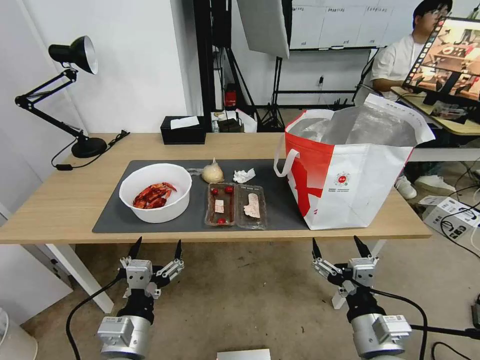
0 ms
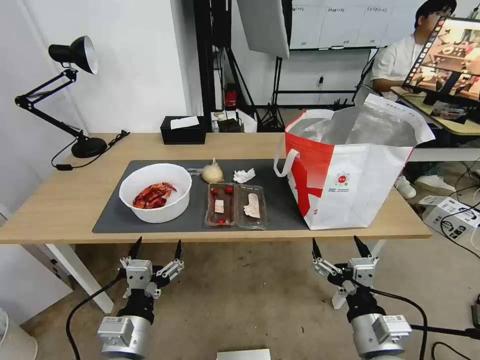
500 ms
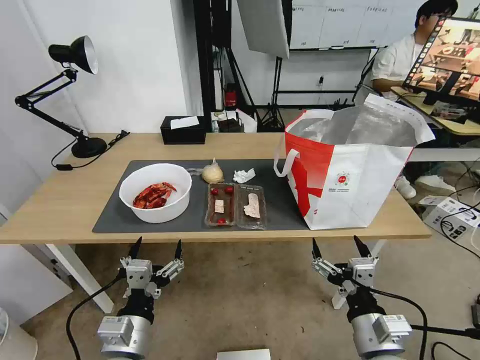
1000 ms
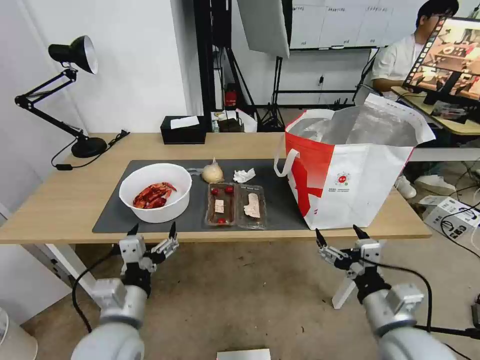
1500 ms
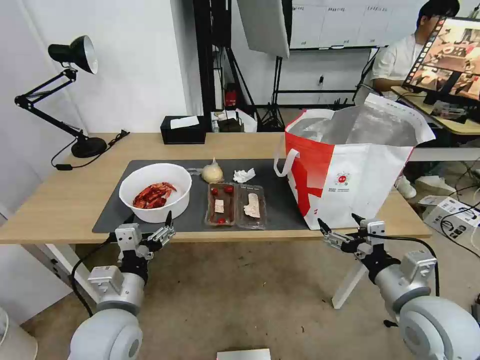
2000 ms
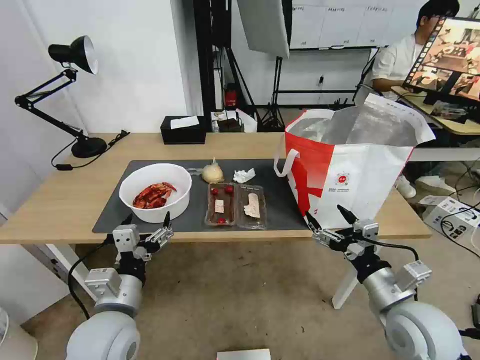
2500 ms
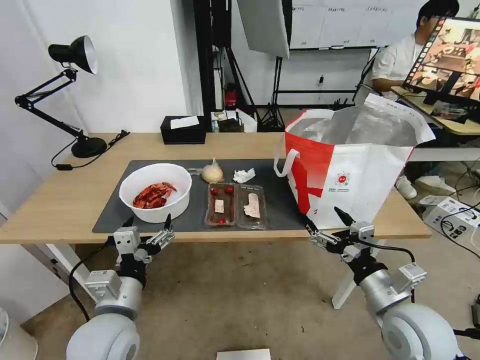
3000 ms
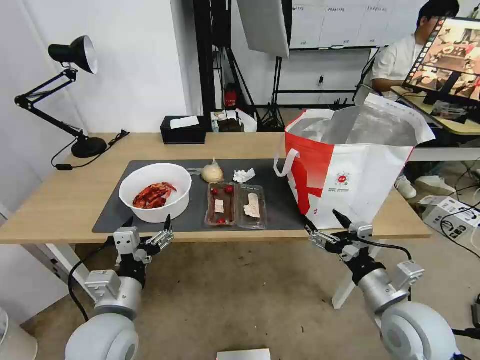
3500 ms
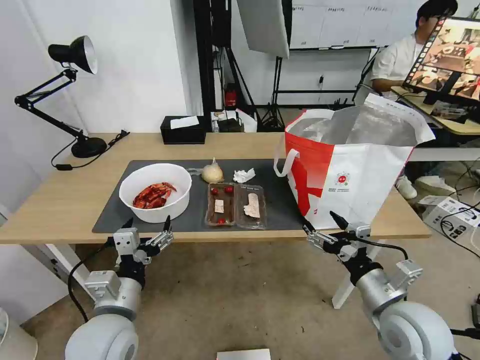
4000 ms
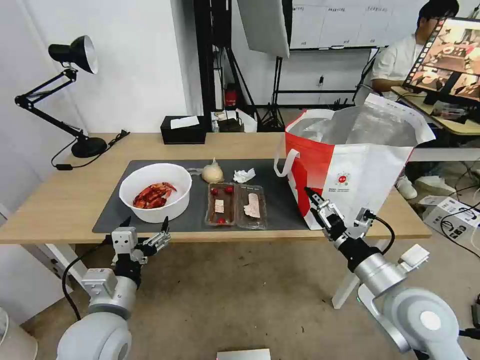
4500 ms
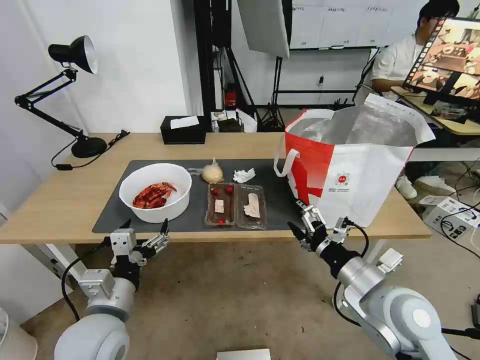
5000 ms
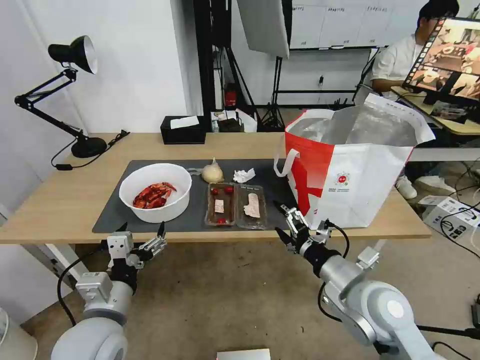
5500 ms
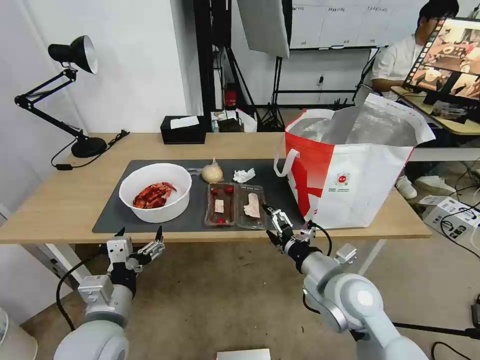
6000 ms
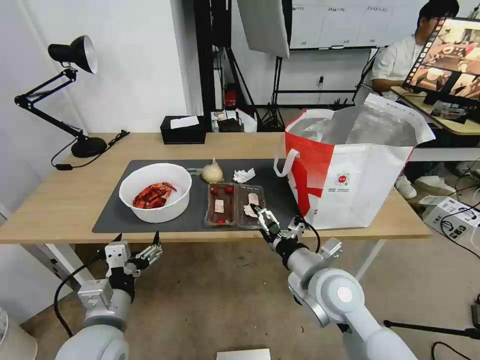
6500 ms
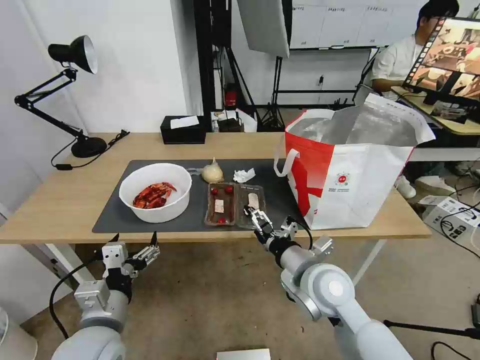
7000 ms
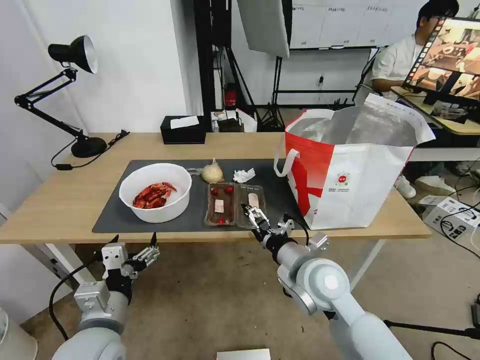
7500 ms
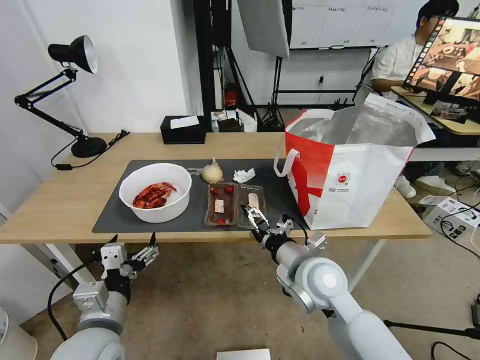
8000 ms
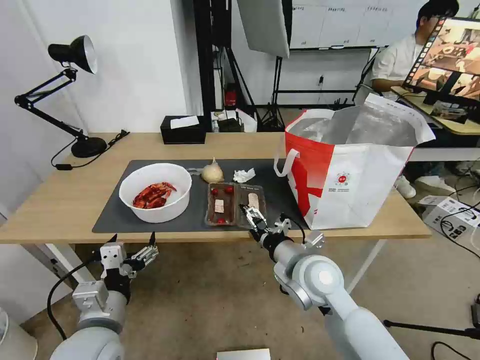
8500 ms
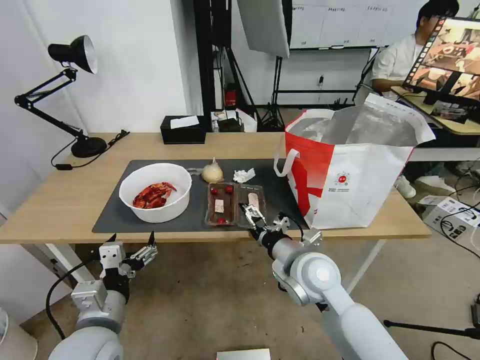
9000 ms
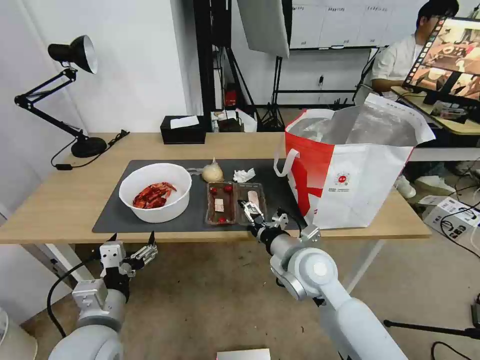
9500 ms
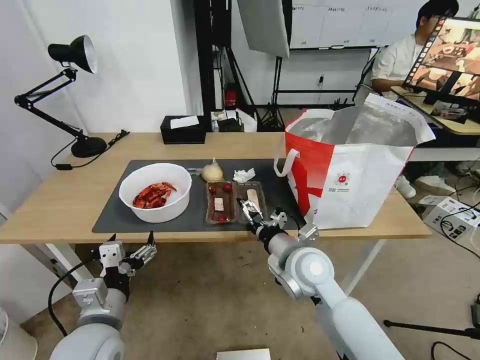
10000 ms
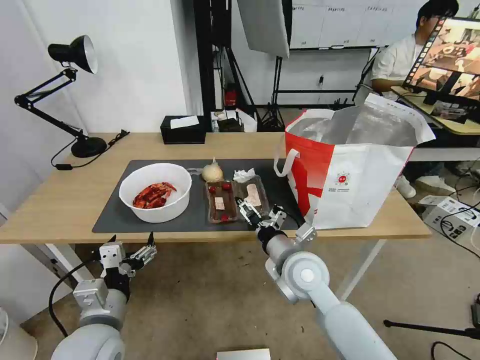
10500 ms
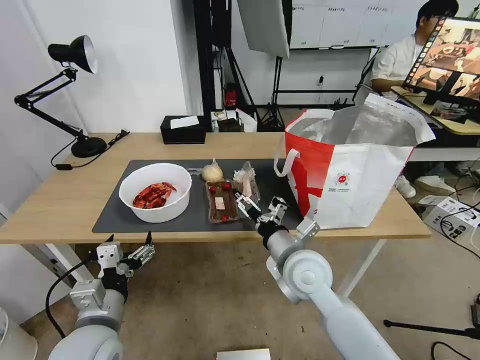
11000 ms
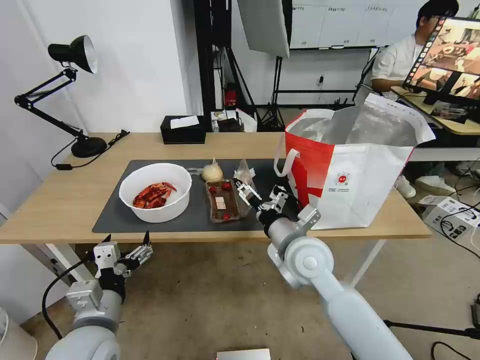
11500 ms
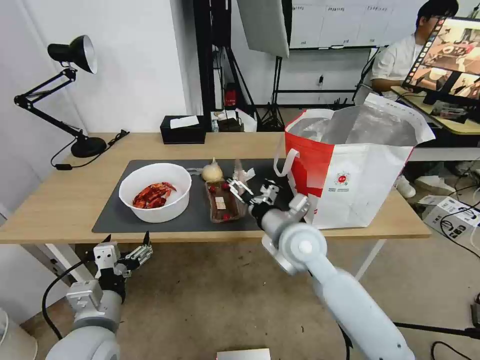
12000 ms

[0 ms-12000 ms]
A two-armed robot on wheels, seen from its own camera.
Task of the whole recording: Pick up the trash from the table and place it into the takeout bag.
2000 ms to 4000 ms: The grippers move only a little.
4000 ms to 6000 ms: The right gripper goes roughly 10 cm to the left and forward.
6000 ms to 8000 ms: The right gripper ends up about 5 cm from where it was.
8000 ms to 10000 ms: The grippers make only small movements.
10000 ms to 12000 ms: The right gripper shifts by roughly 5 cm.

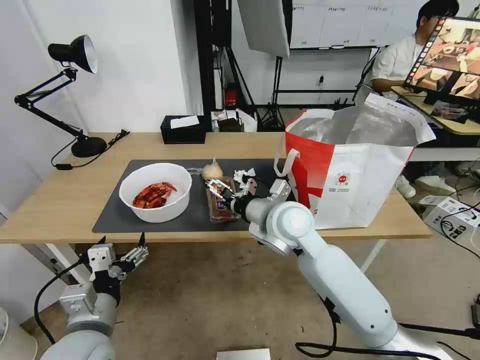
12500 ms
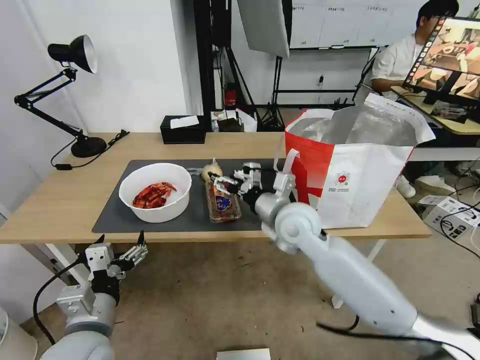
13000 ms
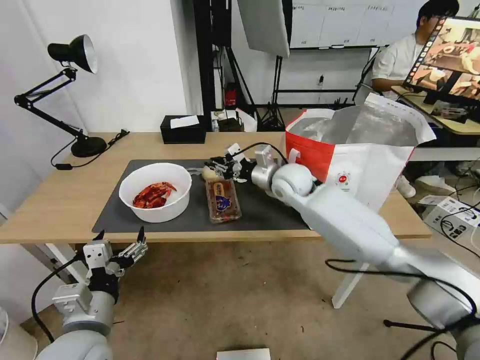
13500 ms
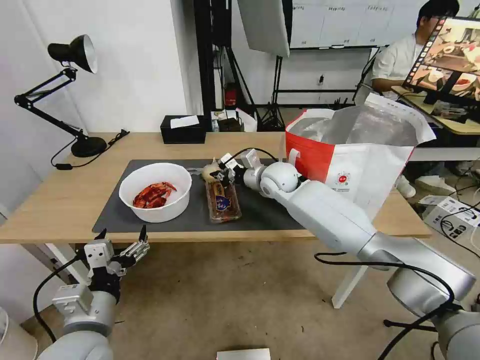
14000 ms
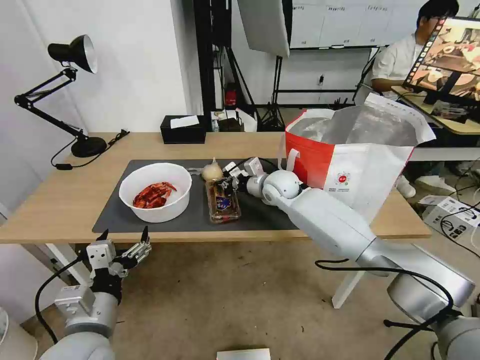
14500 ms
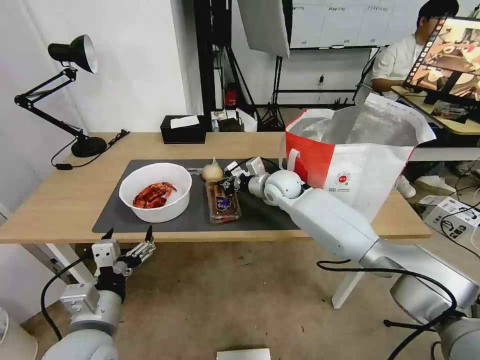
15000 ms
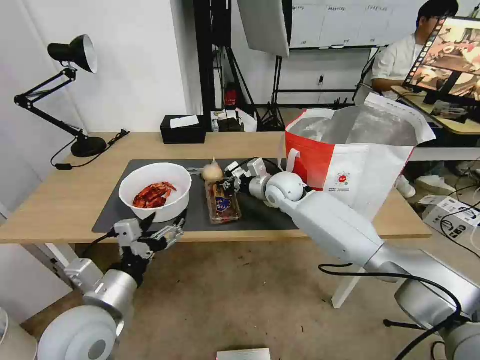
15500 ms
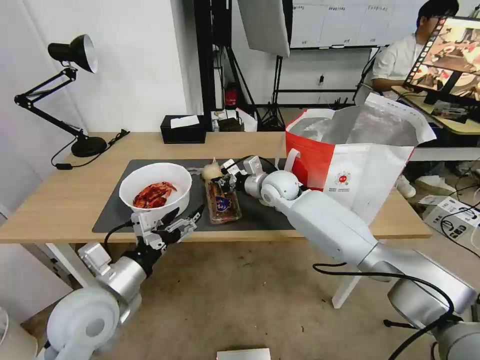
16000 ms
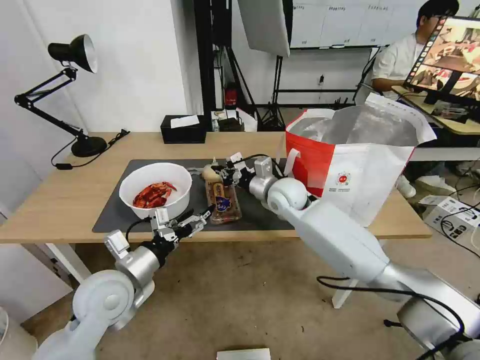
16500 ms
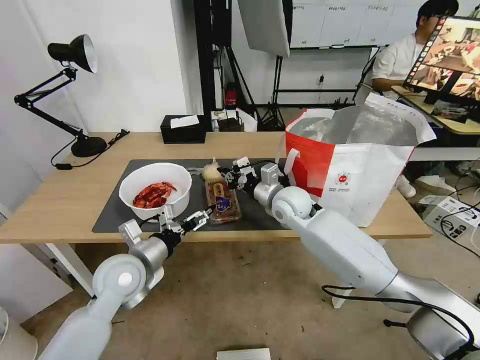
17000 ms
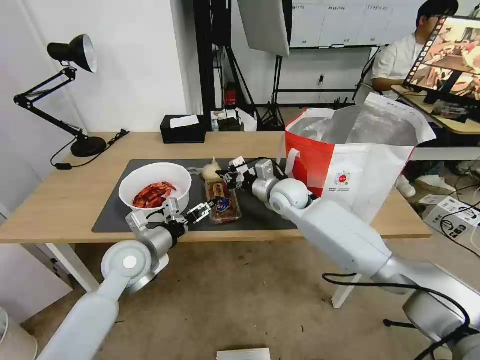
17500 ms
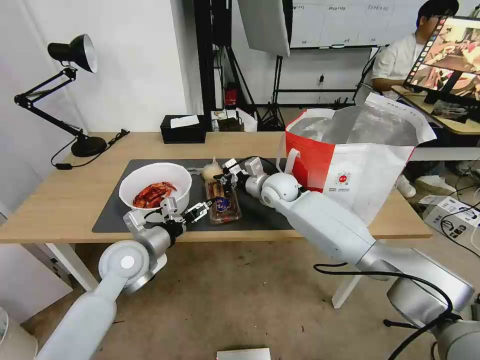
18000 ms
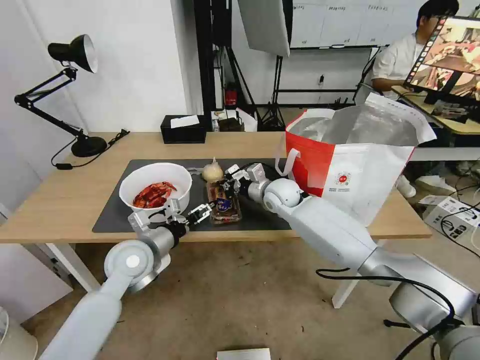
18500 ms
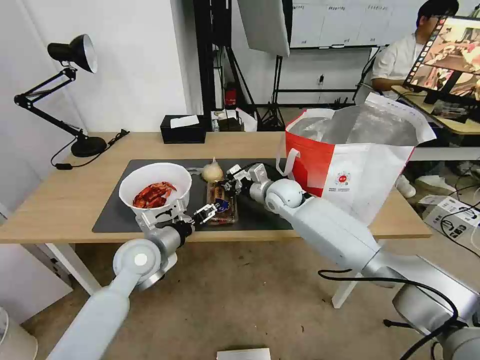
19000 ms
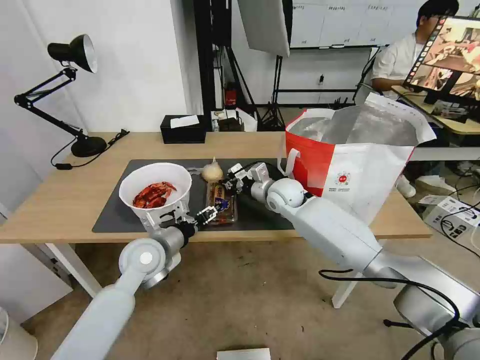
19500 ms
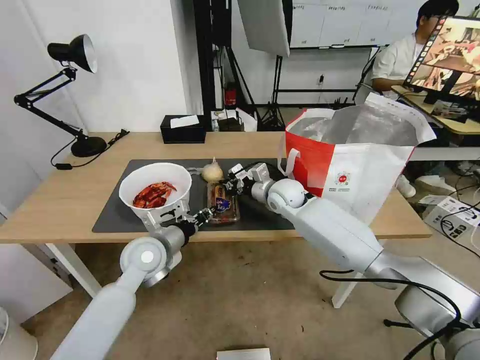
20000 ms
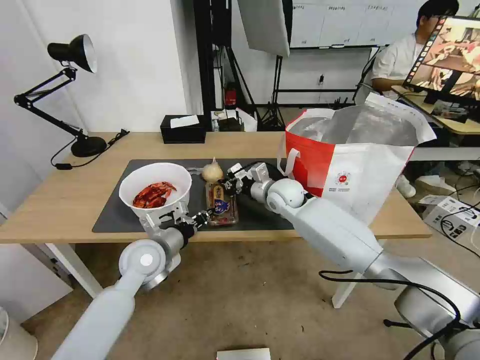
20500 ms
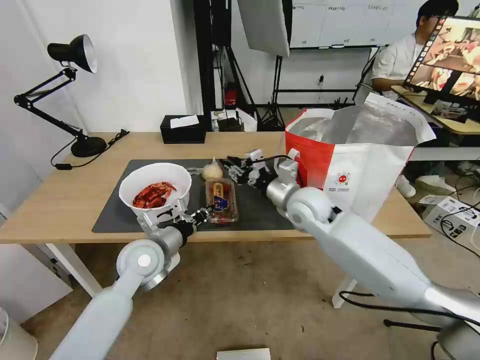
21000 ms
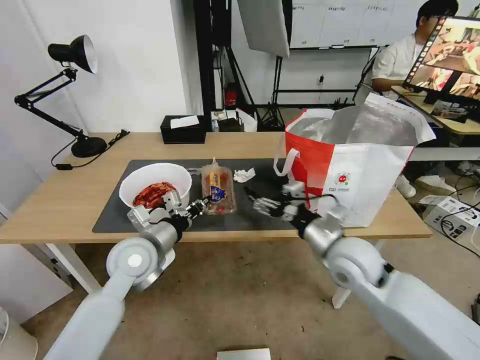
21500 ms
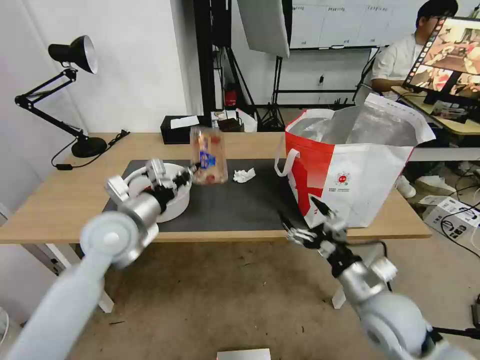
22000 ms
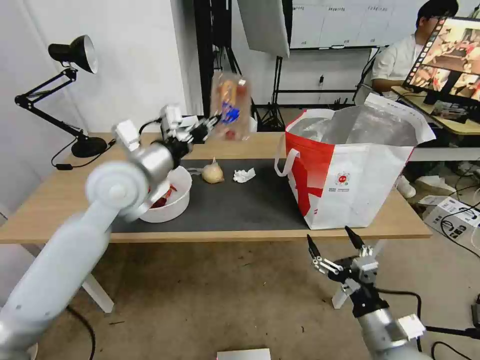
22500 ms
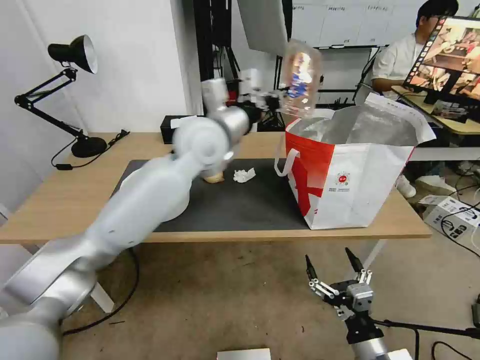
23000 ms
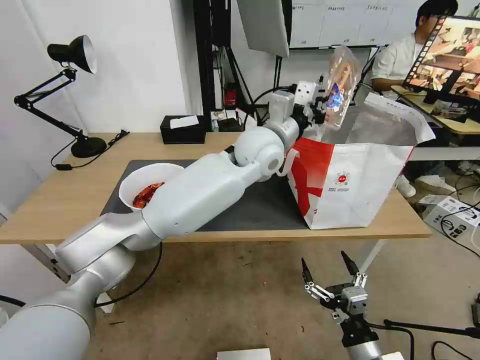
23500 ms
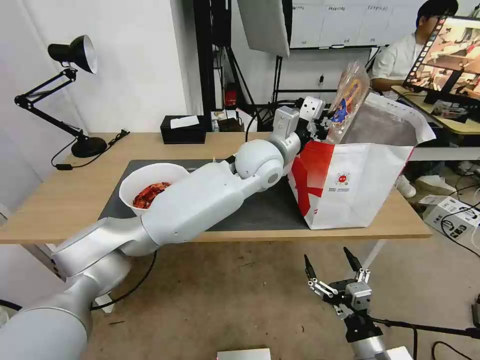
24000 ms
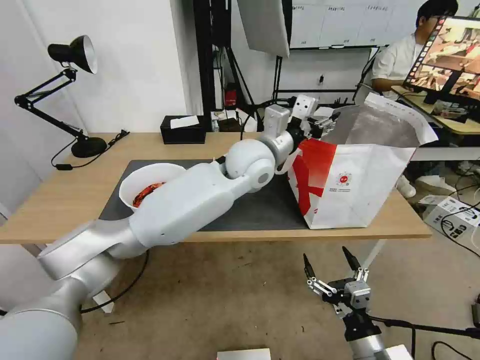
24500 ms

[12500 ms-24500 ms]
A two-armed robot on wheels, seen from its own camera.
Task of the whole recording: Pick up the trash from the table and place it into the takeout bag.
12500 ms to 14500 ms: The right gripper is displaced forward by roughly 15 cm, and closes its fingers.
14500 ms to 16500 ms: The left gripper goes roughly 10 cm forward.
16500 ms to 18500 ms: The left gripper is displaced forward by approximately 10 cm.
18500 ms to 20500 ms: The left gripper closes up.
20500 ms to 22500 ms: The left gripper moves upward, about 20 cm. Meanwhile the right gripper is displaced backward and to the right by about 40 cm, and opens up.
22500 ms to 24500 ms: The left gripper moves to the right, roughly 20 cm, and opens its fingers.

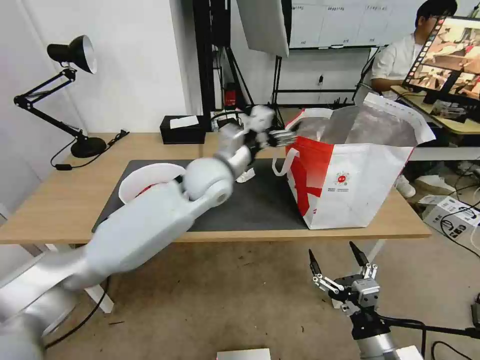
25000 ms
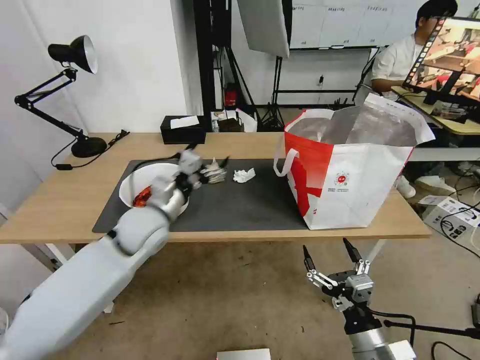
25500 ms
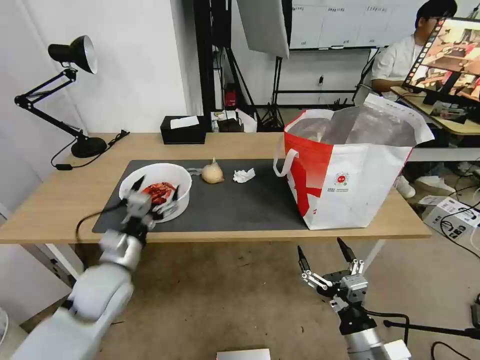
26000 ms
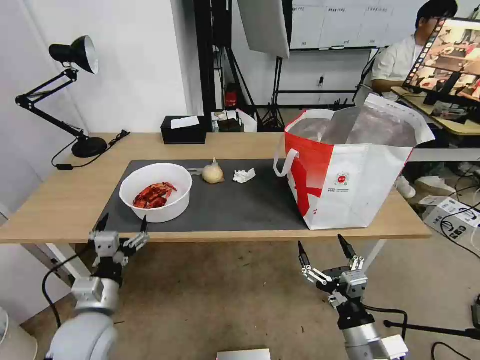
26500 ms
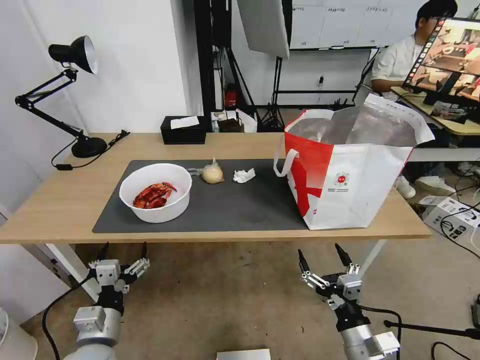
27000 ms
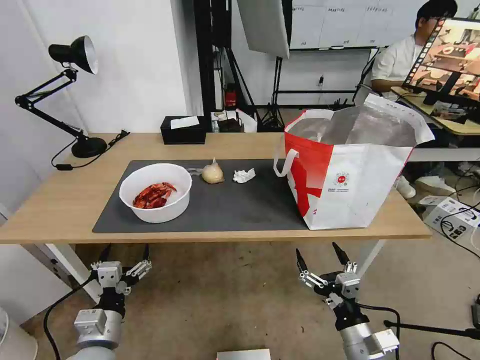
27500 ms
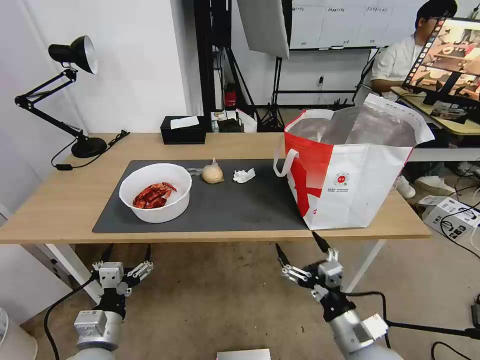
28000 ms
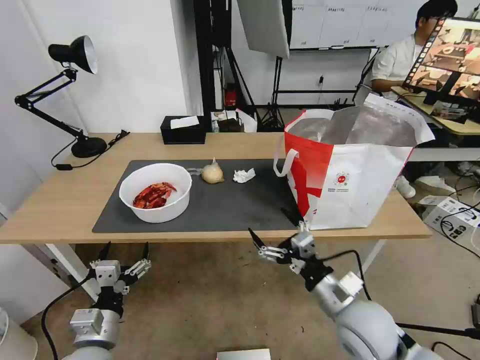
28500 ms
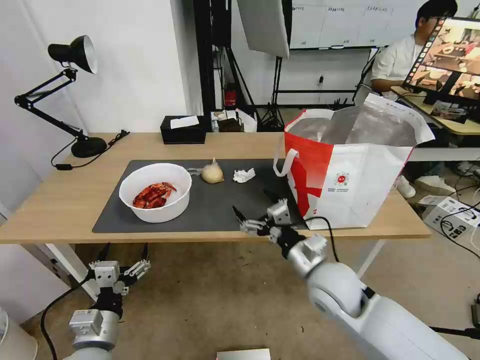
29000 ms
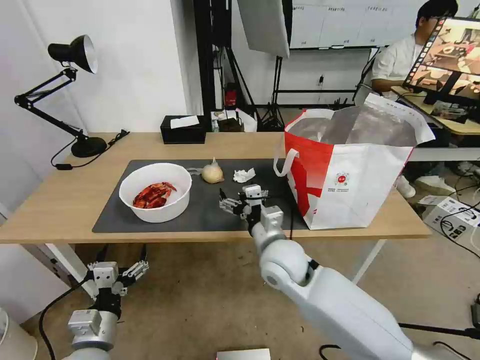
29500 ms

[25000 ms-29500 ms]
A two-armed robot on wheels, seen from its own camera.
Task of the whole recording: Pick up the trash from the table and place it into the takeout bag.
25000 ms to 27000 ms: The left gripper goes some 40 cm backward, downward and to the left.
27000 ms to 29500 ms: The right gripper moves forward, to the left and upward, roughly 30 cm.
